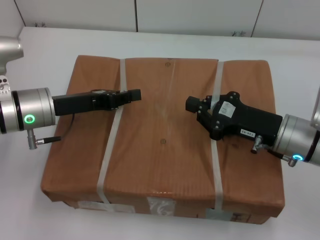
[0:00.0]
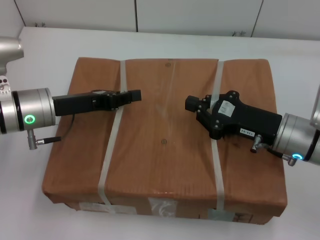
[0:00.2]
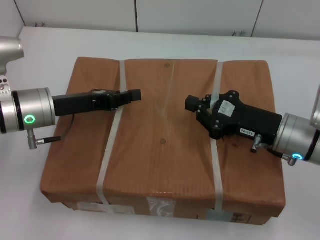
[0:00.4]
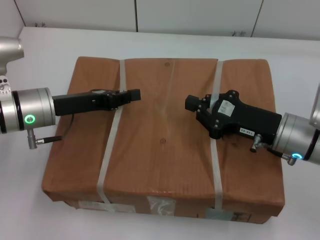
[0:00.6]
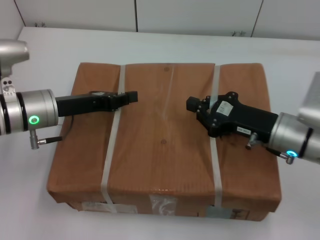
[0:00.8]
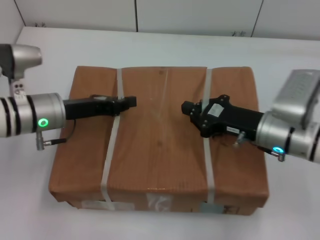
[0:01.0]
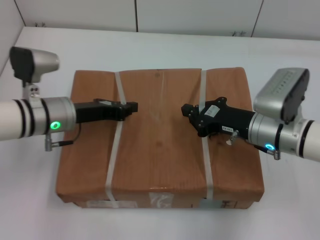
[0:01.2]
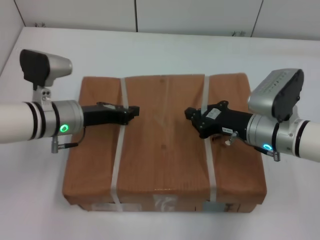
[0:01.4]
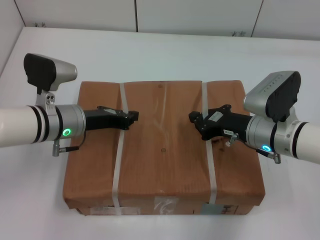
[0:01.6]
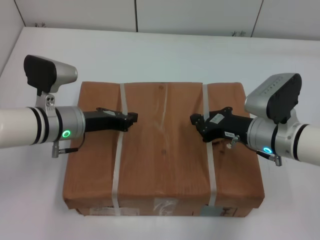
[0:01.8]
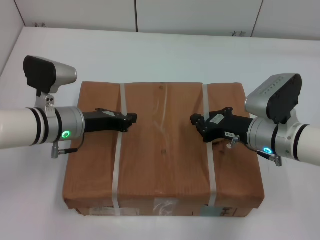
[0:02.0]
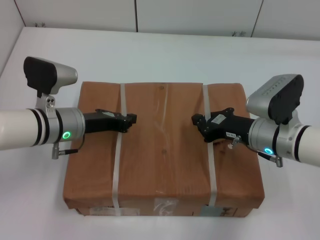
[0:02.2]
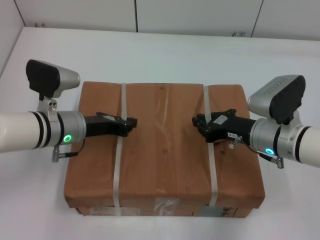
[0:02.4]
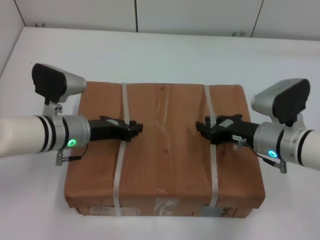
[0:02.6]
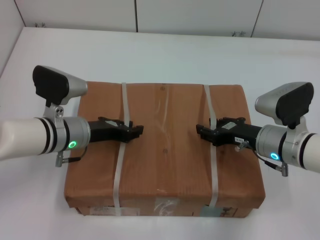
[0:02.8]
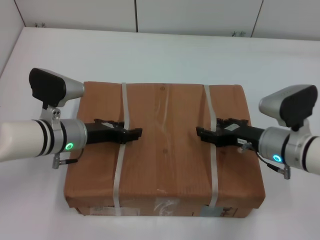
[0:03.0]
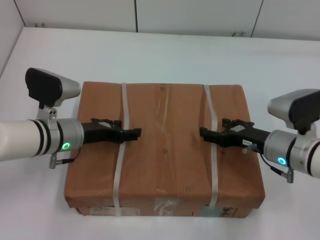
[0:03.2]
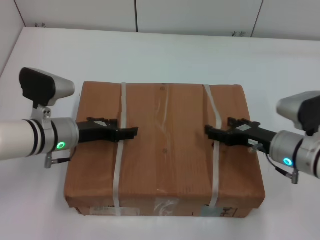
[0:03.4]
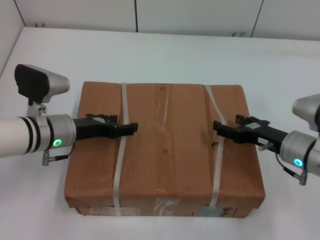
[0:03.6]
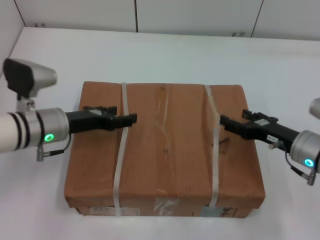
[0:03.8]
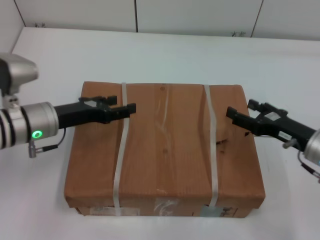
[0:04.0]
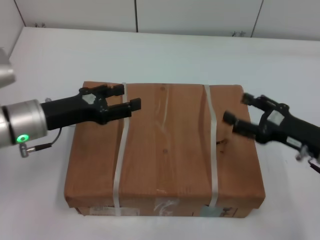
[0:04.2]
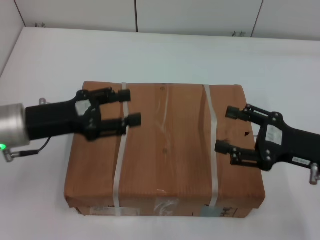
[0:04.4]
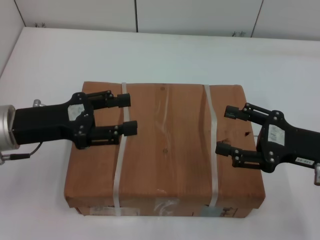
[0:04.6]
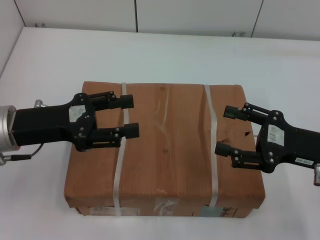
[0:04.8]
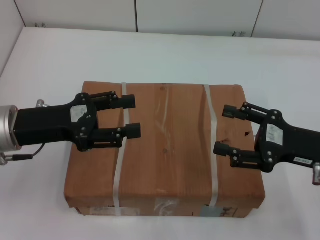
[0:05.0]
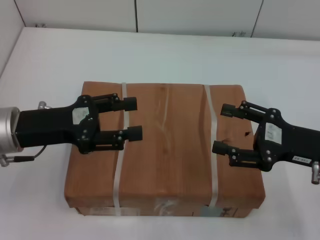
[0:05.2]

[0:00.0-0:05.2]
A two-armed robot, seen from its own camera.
Task of the whole recording: place the box on the table with both arms.
Step, 0:00.0 to 0:01.8: Place the box on the table with left gripper.
Step, 0:00.0 to 0:01.8: Place the box on the table with right gripper.
Step, 0:02.0 to 0:02.8: Loosen the box on the table with left gripper.
Step, 0:02.0 to 0:02.8: Loosen the box on the table with right gripper.
0:00.0 to 0:01.8: The right gripper shifts by approximately 5 cm. Meanwhile the left gripper moves approximately 5 cm.
0:01.8 to 0:03.4: The right gripper moves approximately 5 cm, and opens. Meanwhile the left gripper opens its fingers.
0:03.4 to 0:05.2: The right gripper is displaced upward by about 10 cm. The left gripper is displaced upward and backward by about 10 cm.
